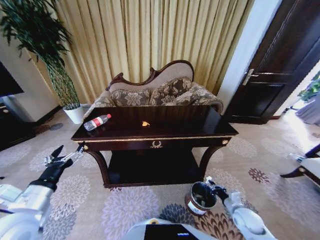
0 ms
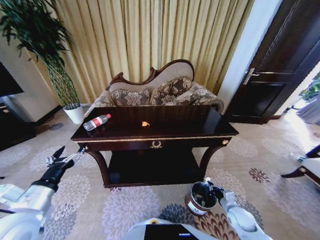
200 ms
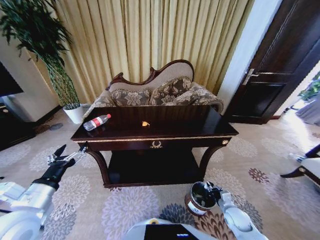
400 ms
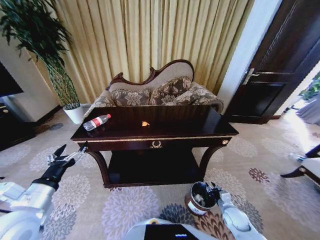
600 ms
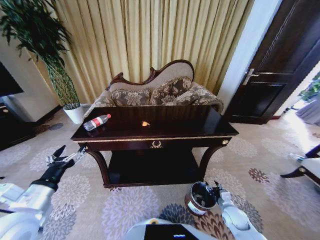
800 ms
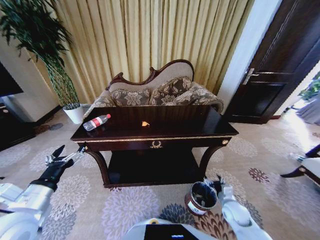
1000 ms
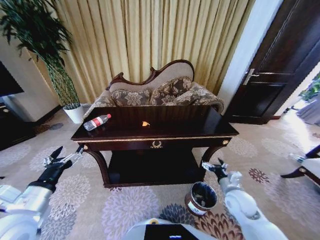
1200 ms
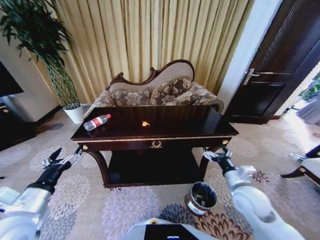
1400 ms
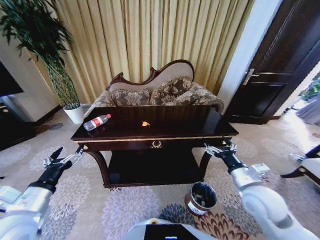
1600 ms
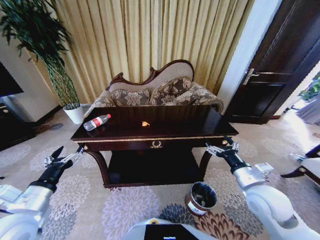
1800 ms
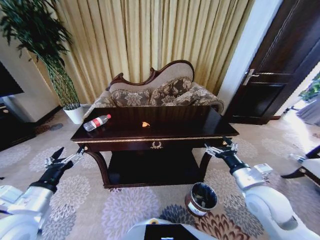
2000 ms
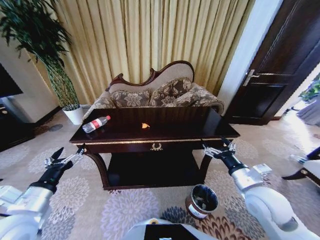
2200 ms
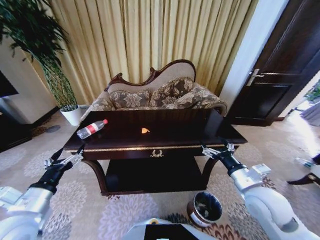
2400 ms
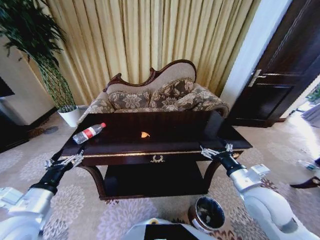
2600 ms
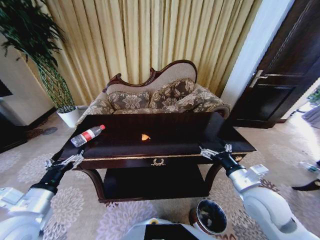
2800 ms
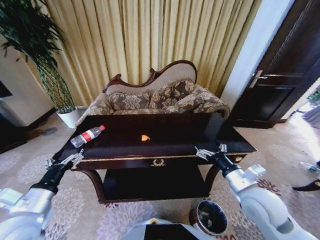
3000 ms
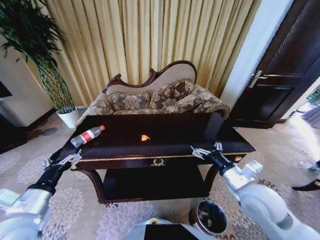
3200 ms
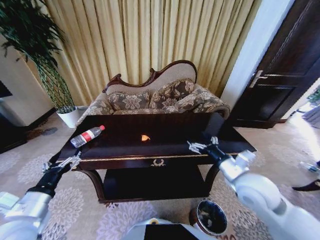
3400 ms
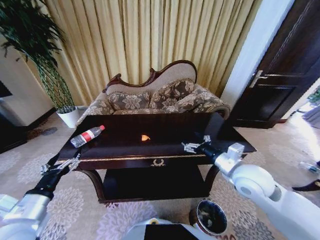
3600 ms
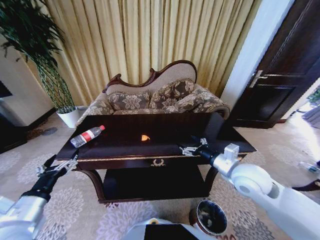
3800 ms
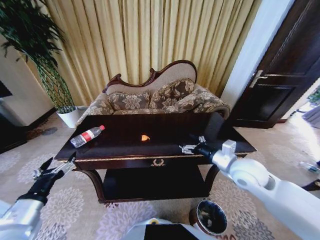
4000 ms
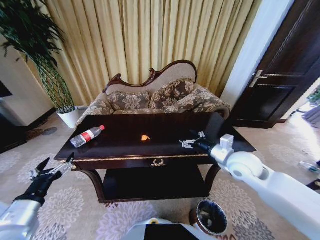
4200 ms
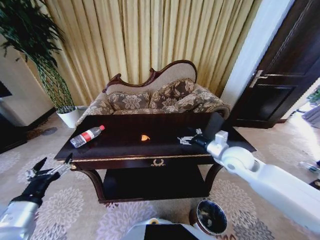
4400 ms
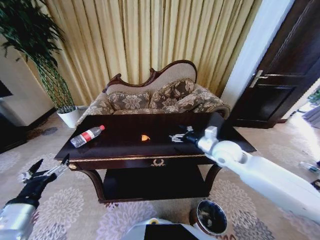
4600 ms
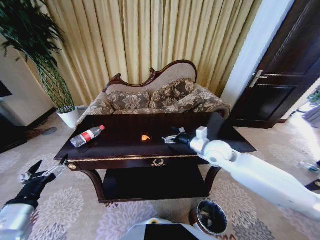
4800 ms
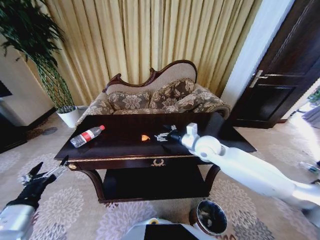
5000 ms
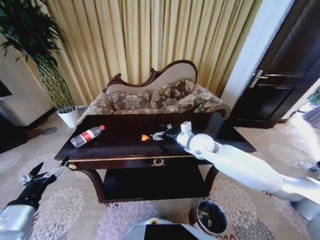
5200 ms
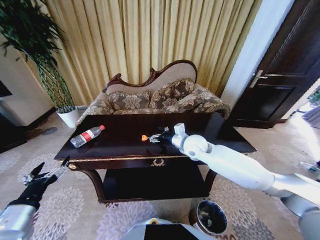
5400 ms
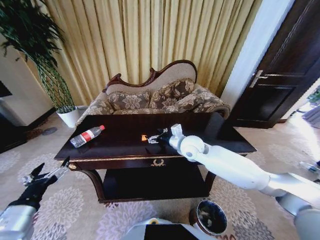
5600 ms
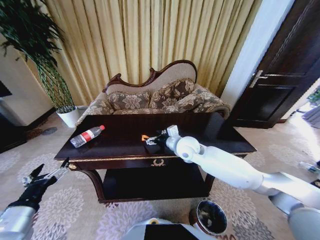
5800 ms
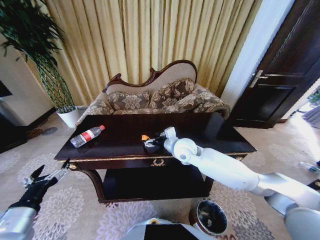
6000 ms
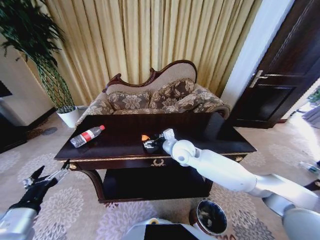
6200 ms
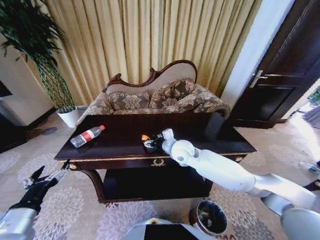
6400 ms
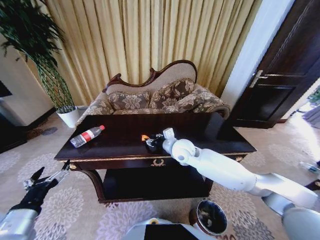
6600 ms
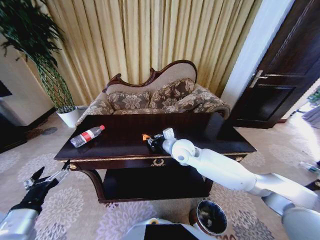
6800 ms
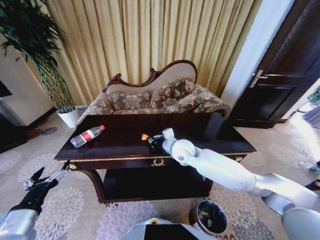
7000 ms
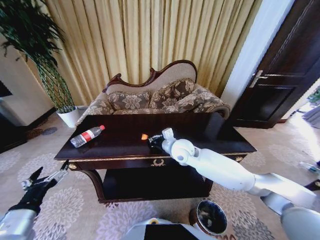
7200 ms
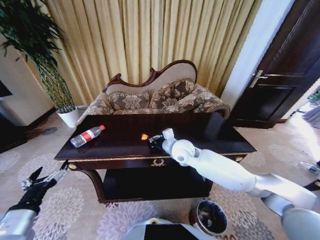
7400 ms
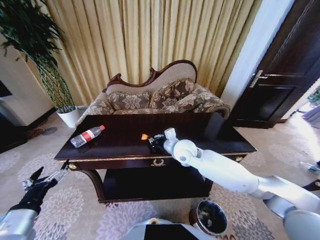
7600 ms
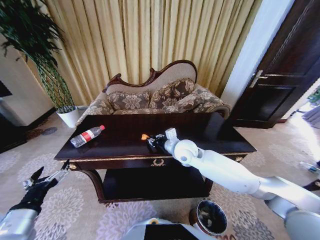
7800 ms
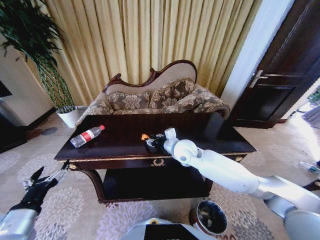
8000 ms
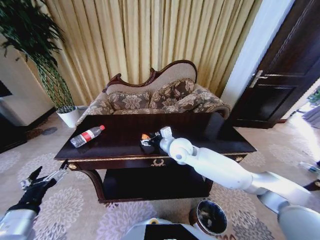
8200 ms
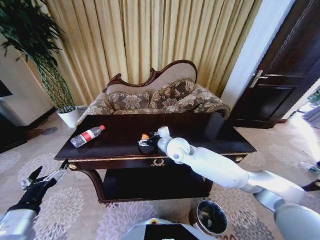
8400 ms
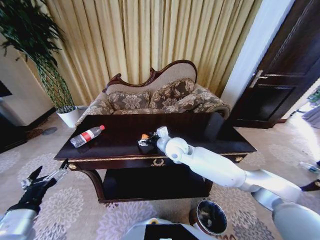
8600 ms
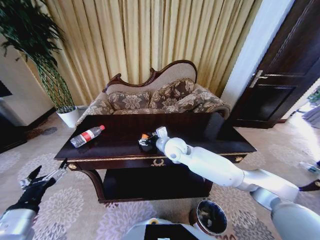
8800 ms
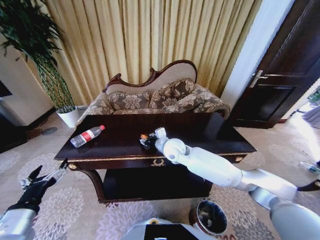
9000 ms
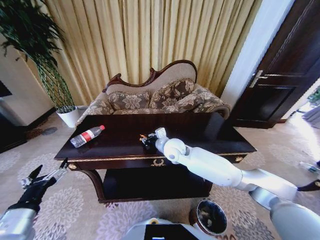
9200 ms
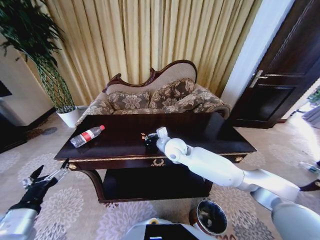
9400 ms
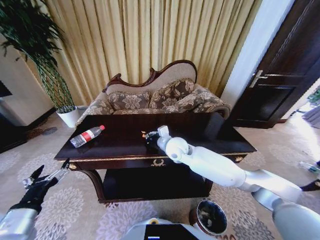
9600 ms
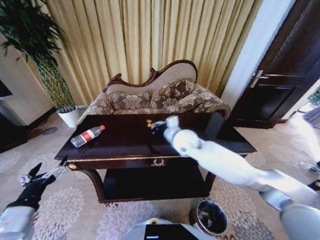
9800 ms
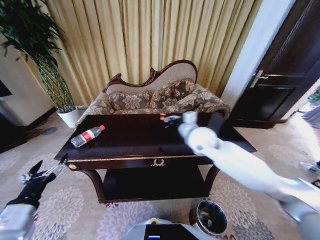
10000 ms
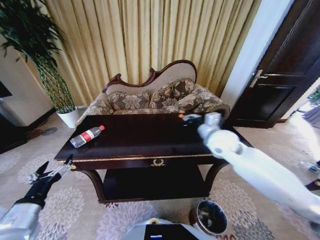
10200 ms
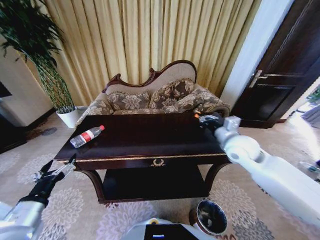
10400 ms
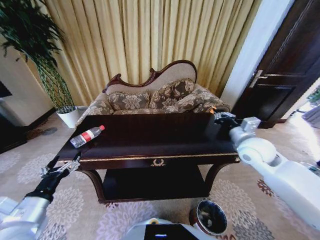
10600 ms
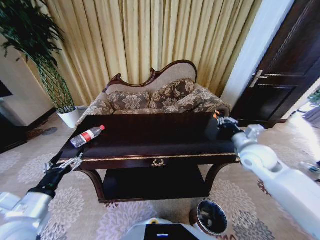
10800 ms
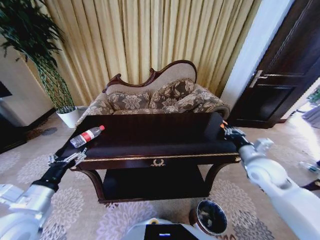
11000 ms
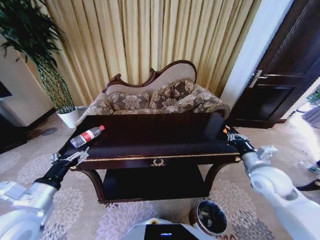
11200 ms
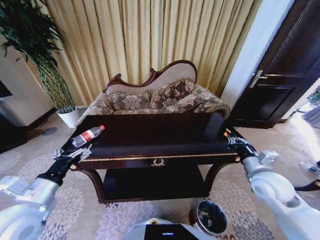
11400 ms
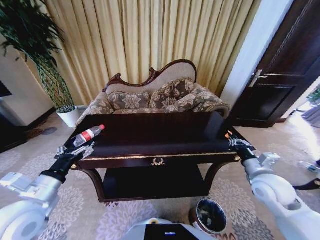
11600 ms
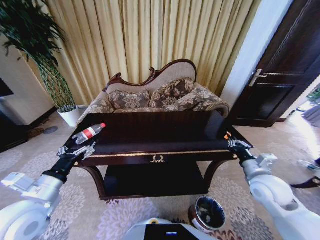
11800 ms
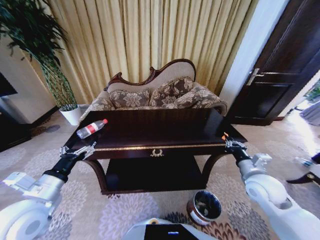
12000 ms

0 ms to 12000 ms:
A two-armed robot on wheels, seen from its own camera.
Task of the whole recording: Move to the front of the table and place the trash on the table into the trash bin.
0 ms to 1600 ms: The right gripper is displaced upward by roughly 20 cm, and opens up.
3000 ms to 4400 ms: The right gripper travels forward by approximately 15 cm.
4400 ms to 6000 ms: The right gripper is displaced to the left by roughly 20 cm.
6000 ms to 7600 ms: The right gripper closes.
7600 ms to 9000 ms: The right gripper opens.
9000 ms to 10400 ms: The right gripper moves to the right, approximately 25 cm, and closes up.
10400 ms to 12000 ms: The right gripper moves backward, downward and to the right, approximately 15 cm. The left gripper is displaced forward by roughly 5 cm.

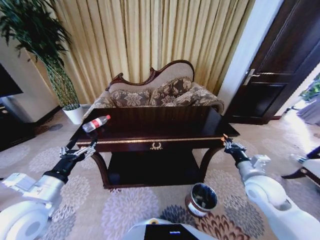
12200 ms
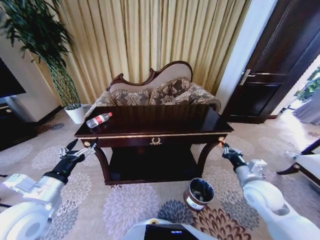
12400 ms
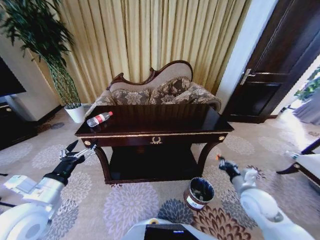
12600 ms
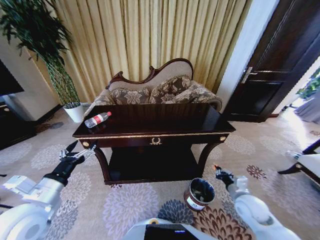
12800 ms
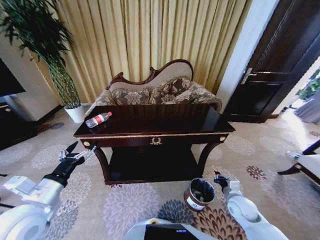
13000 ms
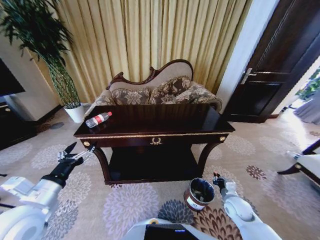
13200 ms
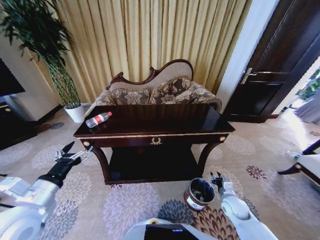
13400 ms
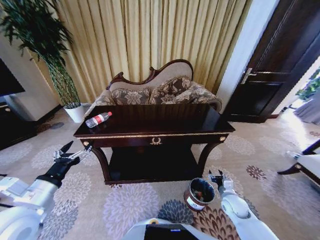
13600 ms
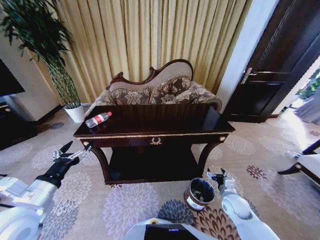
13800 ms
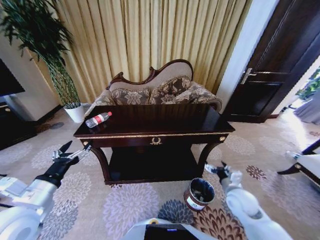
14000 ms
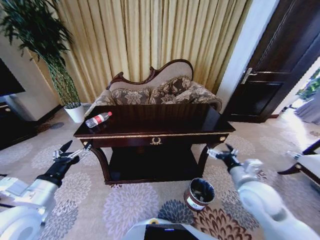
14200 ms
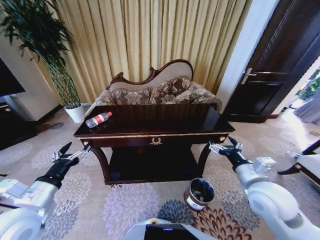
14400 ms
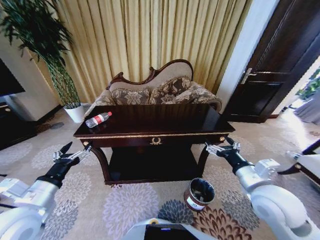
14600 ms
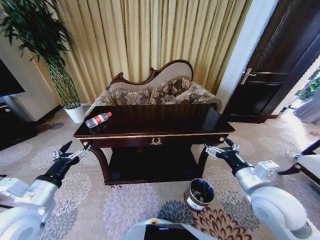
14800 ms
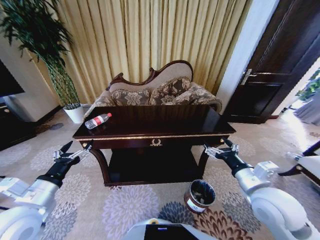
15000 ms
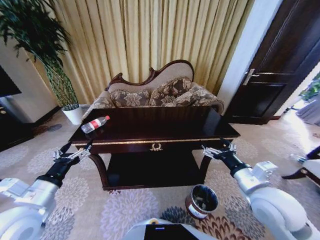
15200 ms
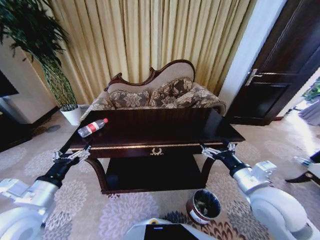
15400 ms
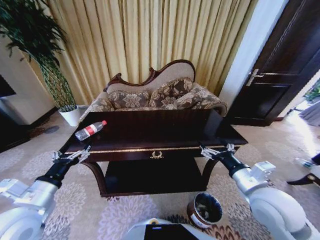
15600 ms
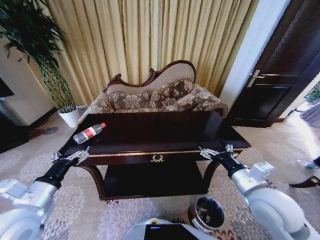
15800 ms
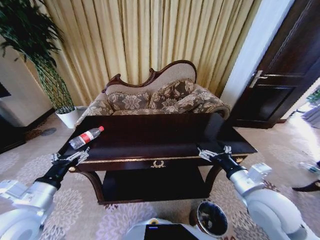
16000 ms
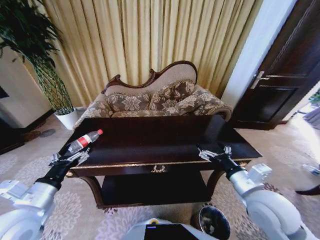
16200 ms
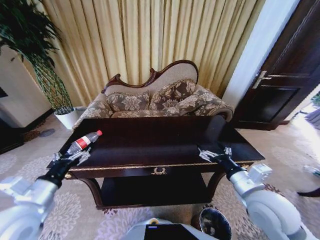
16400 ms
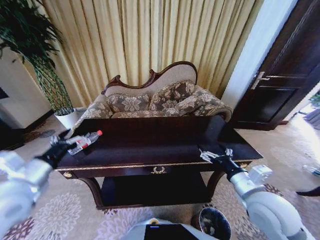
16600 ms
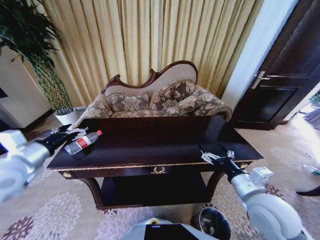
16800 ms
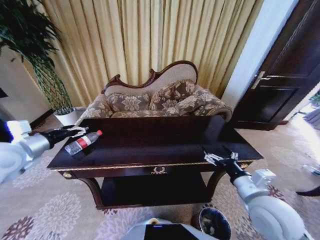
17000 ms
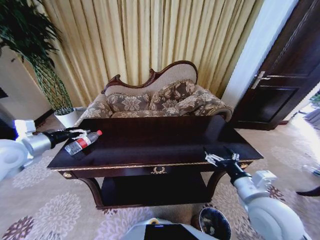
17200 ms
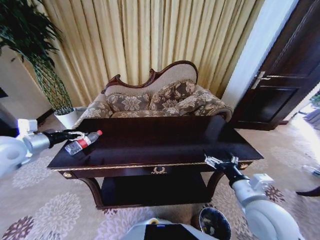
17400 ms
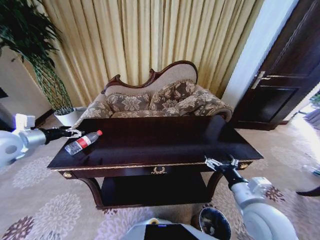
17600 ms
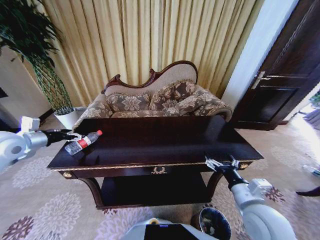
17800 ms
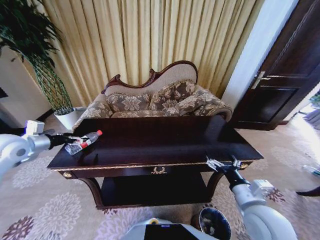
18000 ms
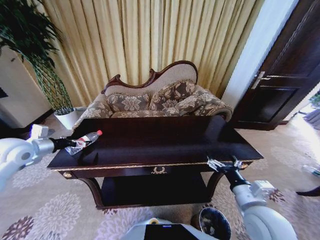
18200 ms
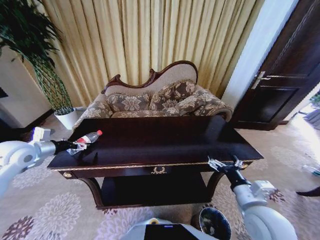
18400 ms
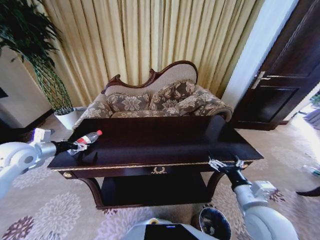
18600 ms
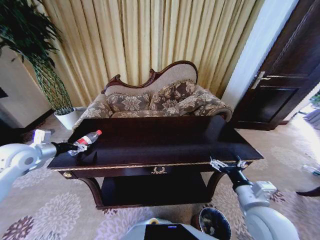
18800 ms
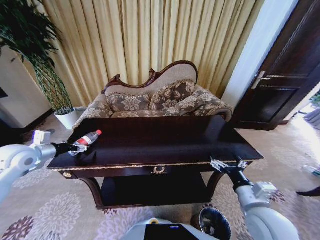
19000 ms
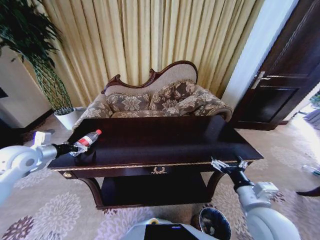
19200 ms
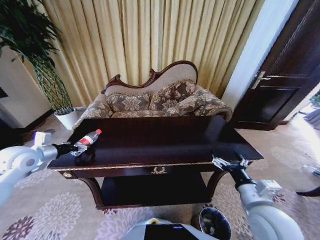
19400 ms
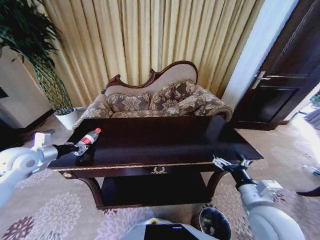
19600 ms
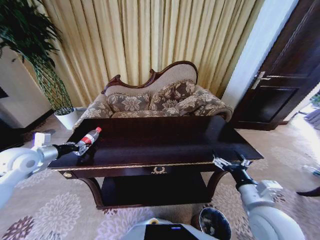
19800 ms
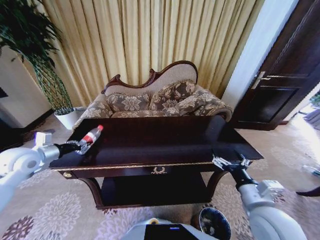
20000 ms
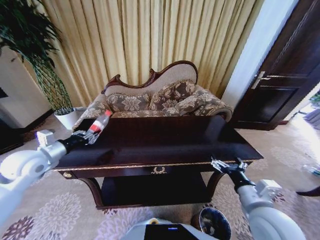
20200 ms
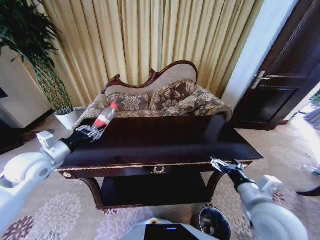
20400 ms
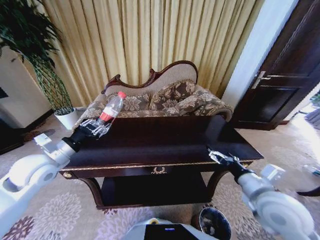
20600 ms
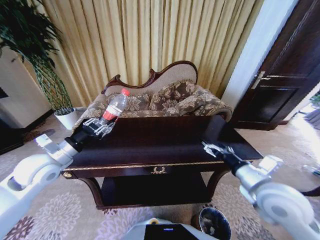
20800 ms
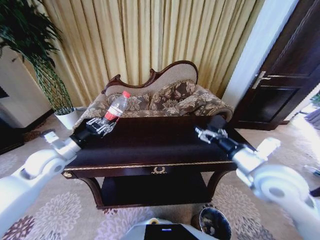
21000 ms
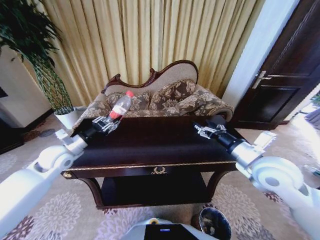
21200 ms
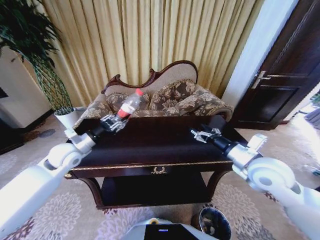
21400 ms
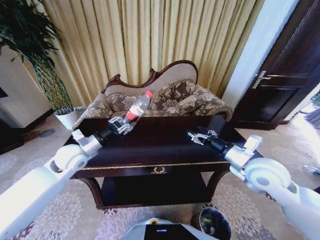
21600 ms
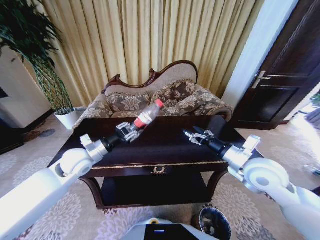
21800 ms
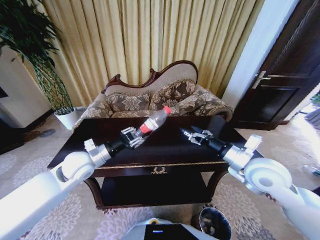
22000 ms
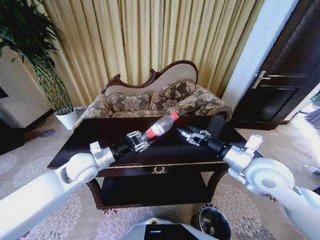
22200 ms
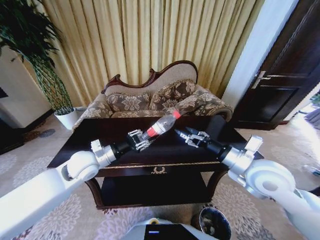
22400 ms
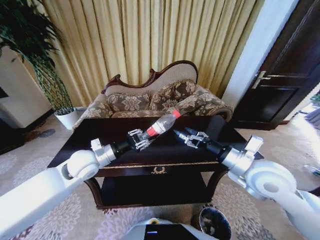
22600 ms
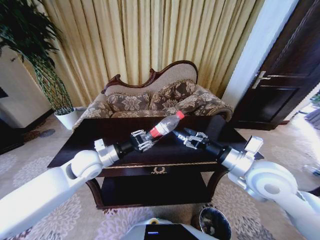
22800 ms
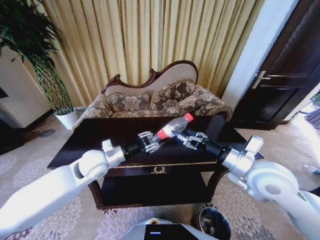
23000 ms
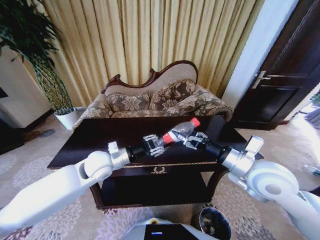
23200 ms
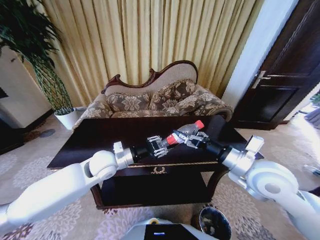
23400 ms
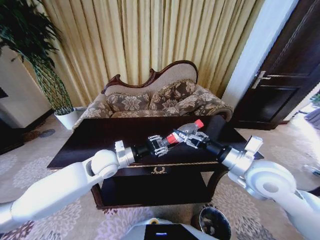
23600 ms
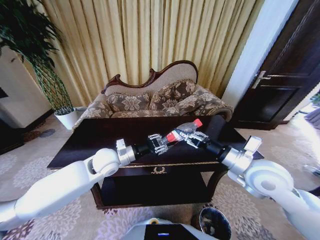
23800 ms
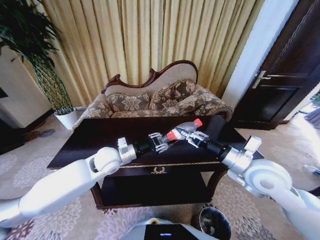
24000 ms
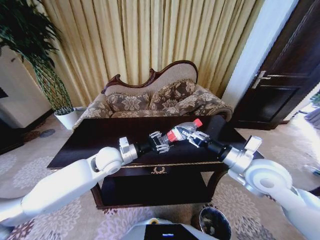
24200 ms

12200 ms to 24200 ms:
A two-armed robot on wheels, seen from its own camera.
Task of the whole recording: Move to the front of the table and place the trash on the table into the trash bin.
12200 ms to 13800 ms: The right gripper is displaced downward by approximately 15 cm, and opens up.
13800 ms to 15200 ms: The right gripper heads upward, covering about 25 cm.
15200 ms to 16600 ms: The left gripper shifts by approximately 5 cm.
16600 ms to 18200 ms: The left gripper heads forward and to the left, covering some 15 cm.
18200 ms to 19800 ms: The left gripper closes up.
19800 ms to 21200 ms: The right gripper heads forward and upward, covering about 15 cm. The left gripper goes some 10 cm to the right.
21200 ms to 22600 ms: The left gripper is displaced to the right by approximately 10 cm.
22600 ms to 24200 ms: The right gripper closes up. Meanwhile the left gripper is displaced to the right by some 5 cm.
